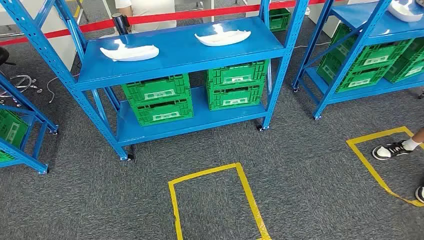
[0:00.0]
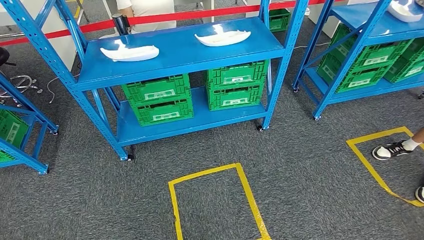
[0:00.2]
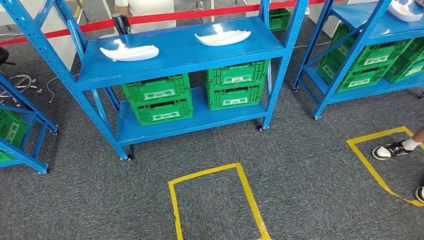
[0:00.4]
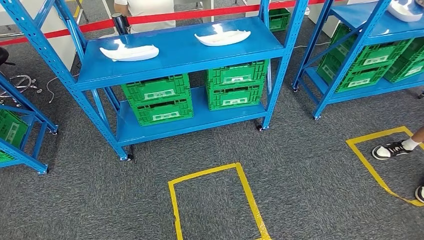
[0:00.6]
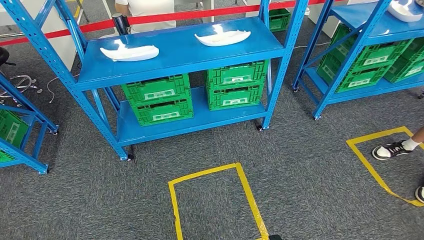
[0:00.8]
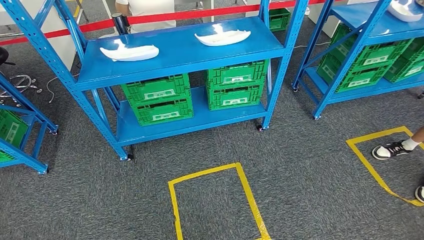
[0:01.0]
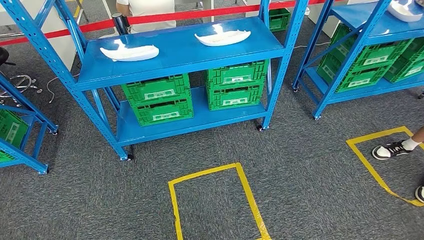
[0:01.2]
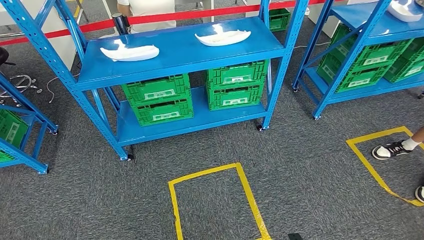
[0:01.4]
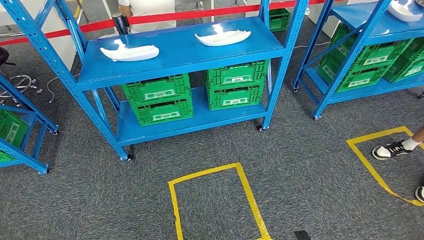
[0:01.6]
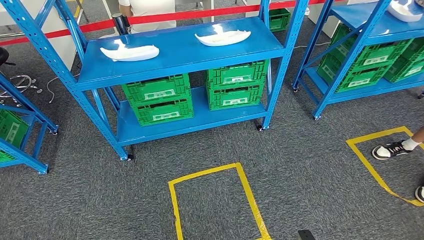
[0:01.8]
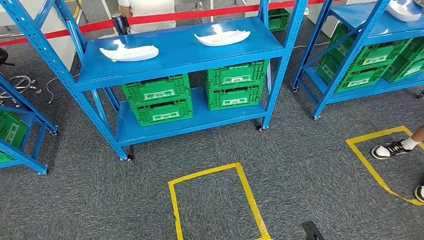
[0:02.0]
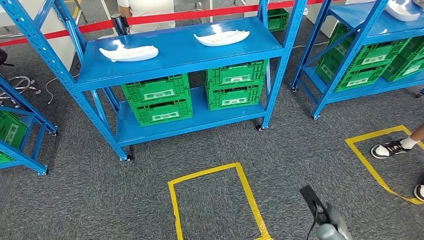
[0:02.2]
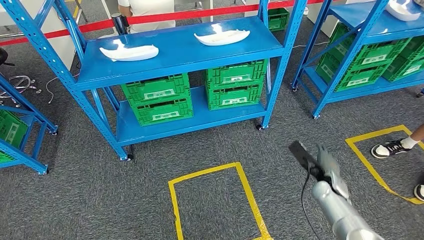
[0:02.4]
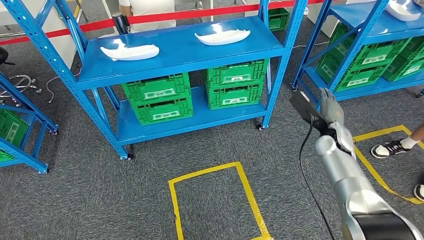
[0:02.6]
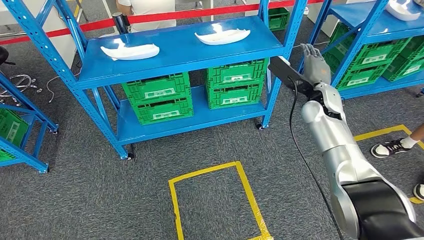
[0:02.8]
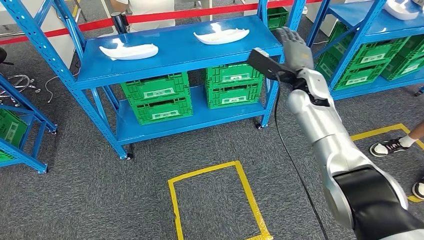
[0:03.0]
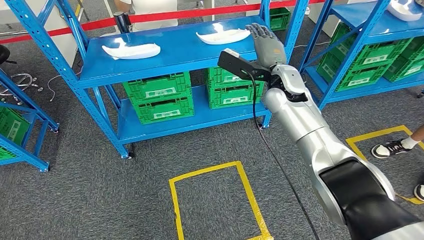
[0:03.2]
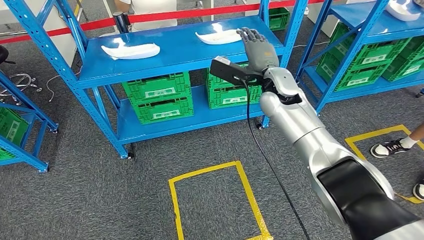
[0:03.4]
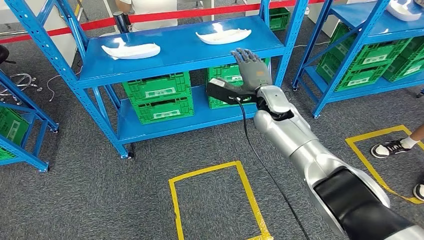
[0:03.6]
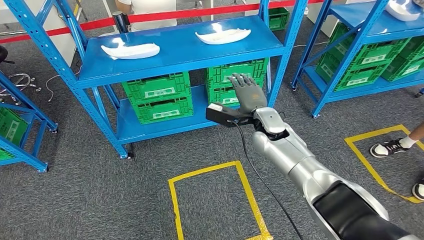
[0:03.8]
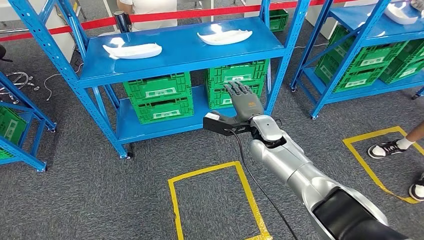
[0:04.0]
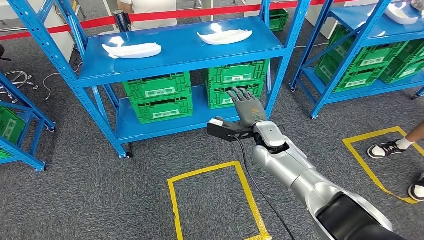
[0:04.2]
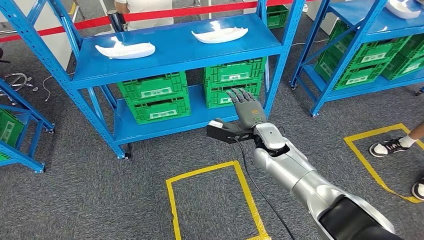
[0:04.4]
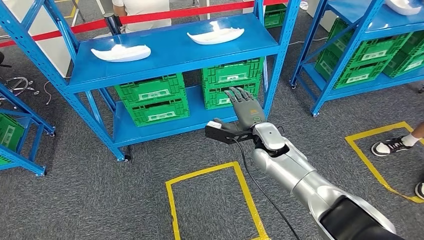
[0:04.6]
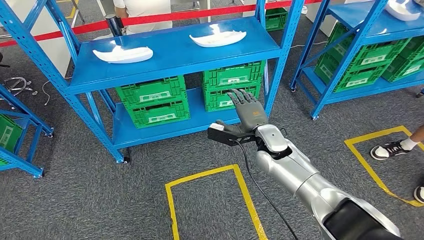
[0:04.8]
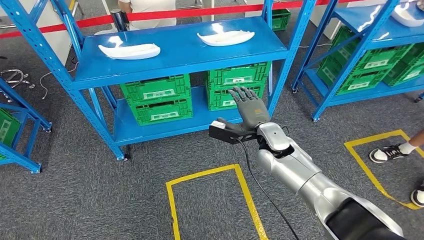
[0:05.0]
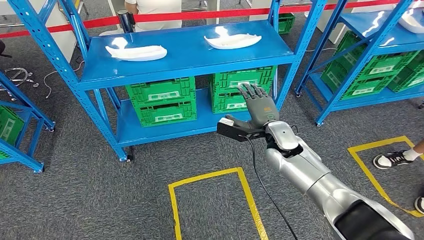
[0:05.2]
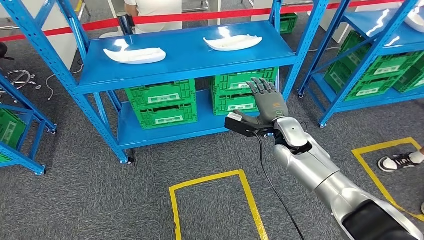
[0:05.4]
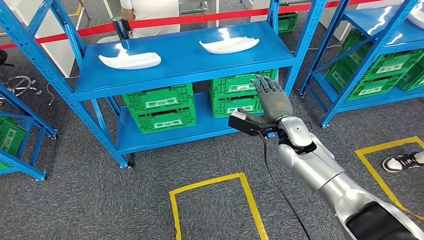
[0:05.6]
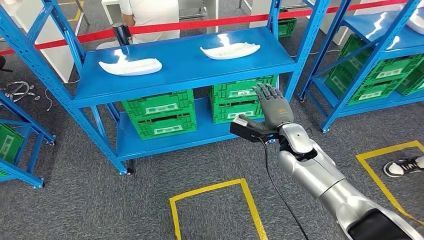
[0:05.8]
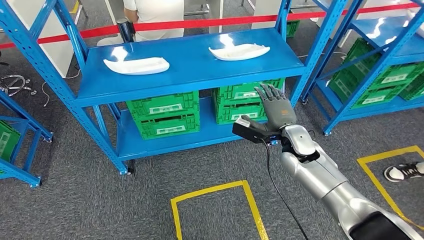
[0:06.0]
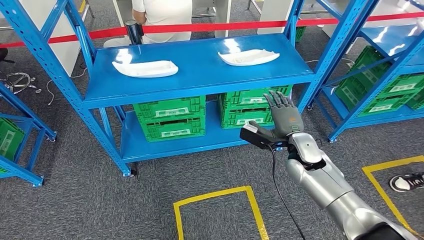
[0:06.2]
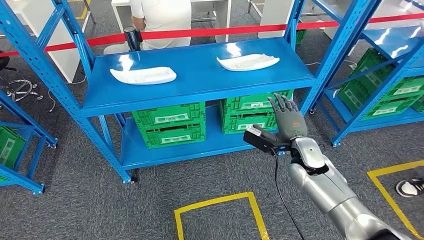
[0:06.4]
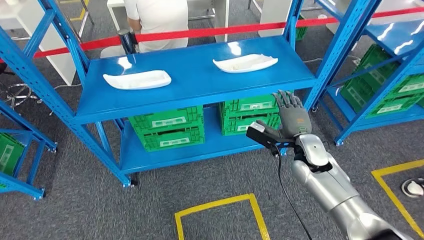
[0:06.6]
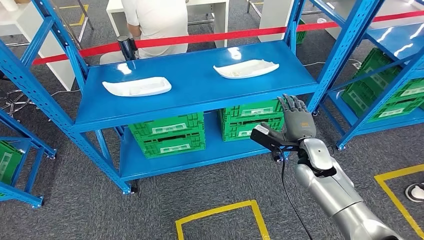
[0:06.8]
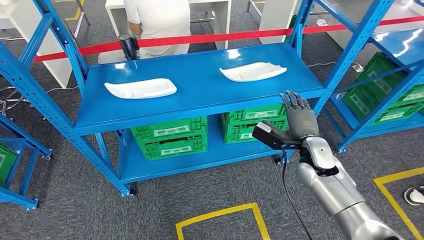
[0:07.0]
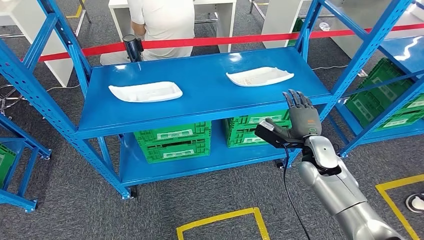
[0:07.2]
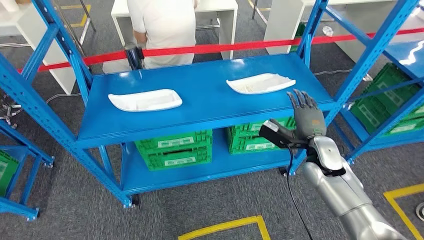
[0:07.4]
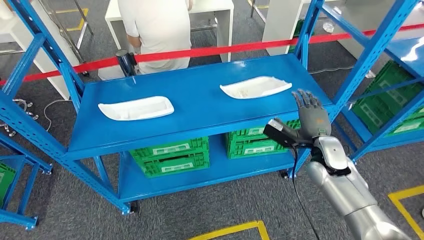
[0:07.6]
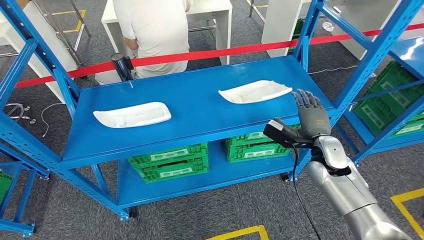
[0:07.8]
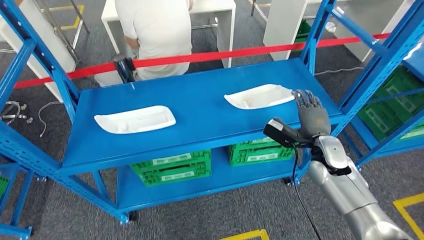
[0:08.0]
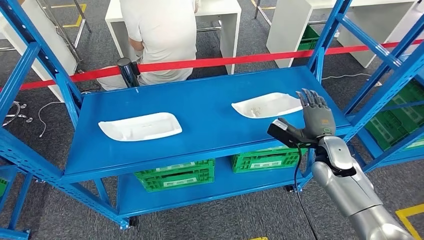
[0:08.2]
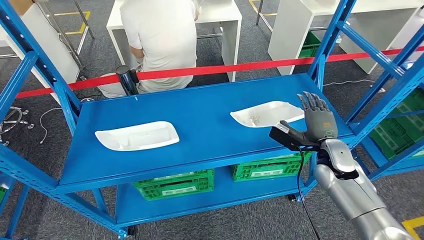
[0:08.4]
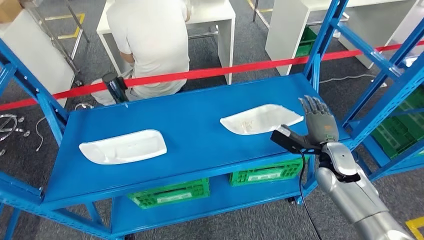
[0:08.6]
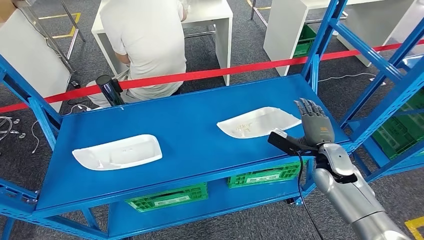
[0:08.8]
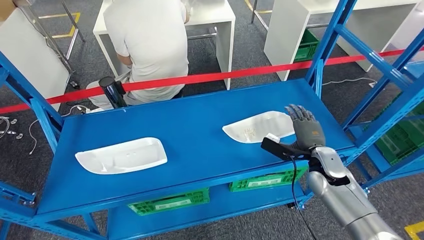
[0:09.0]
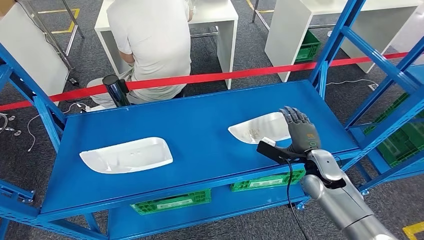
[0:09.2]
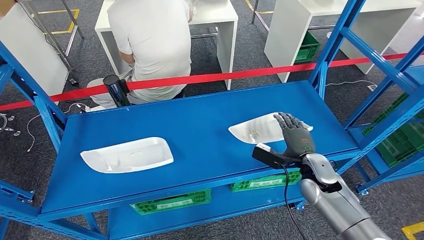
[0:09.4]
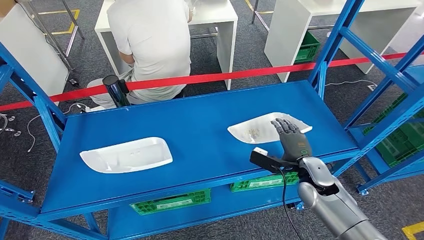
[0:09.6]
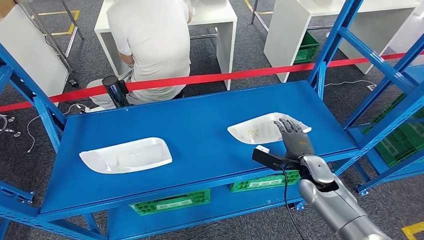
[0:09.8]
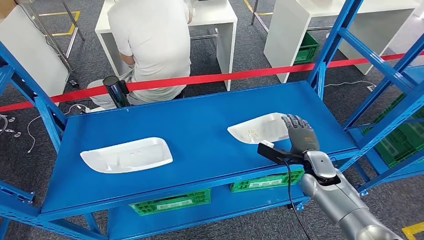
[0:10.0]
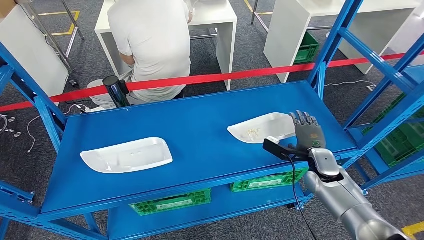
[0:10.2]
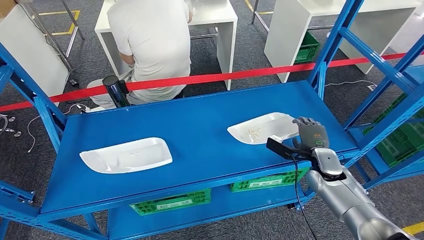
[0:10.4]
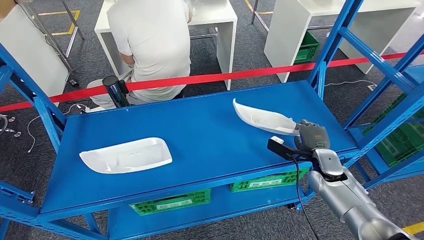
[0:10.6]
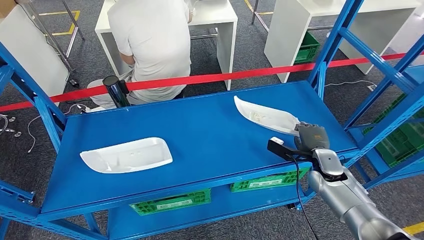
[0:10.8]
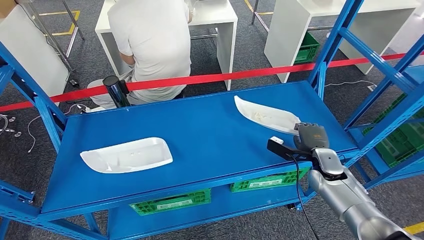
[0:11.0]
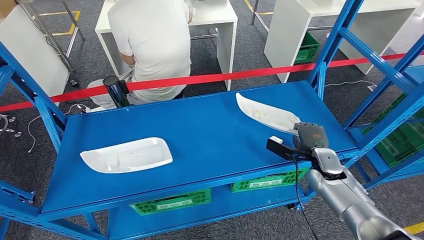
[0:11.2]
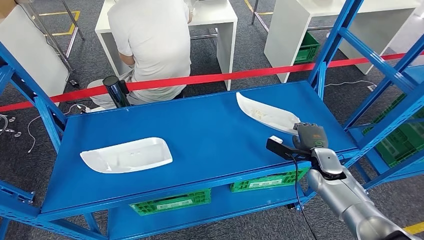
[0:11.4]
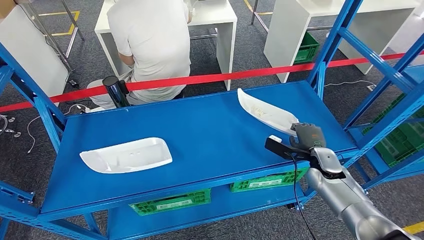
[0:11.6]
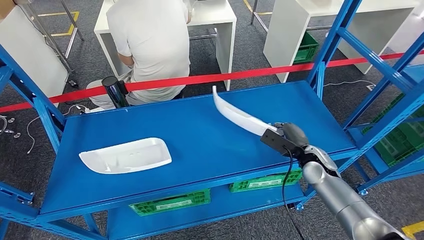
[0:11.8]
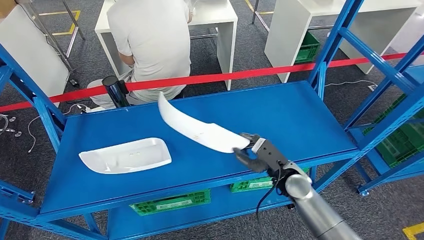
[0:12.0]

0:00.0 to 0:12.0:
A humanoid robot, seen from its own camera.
0:09.0 to 0:10.4: There are only small adjustments of the hands.
0:10.4 to 0:12.0: The right hand travels to the left by roughly 10 cm.

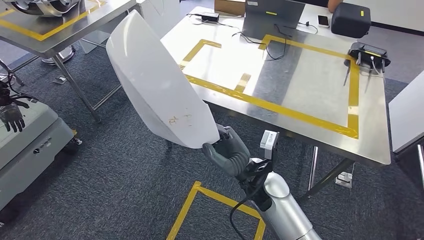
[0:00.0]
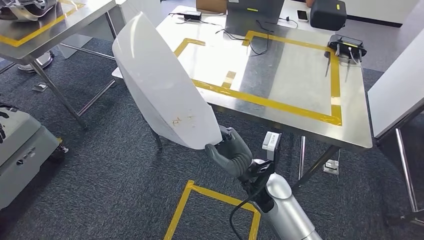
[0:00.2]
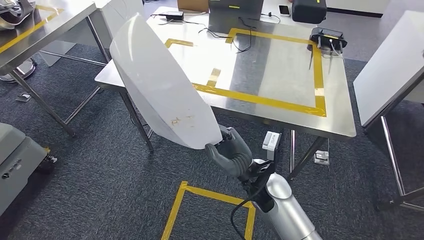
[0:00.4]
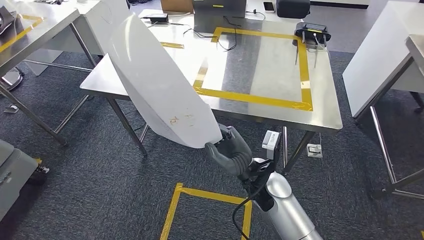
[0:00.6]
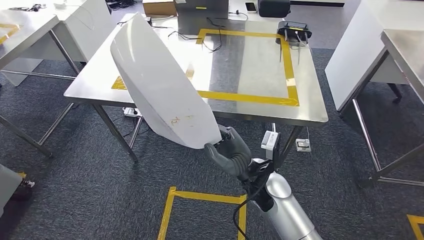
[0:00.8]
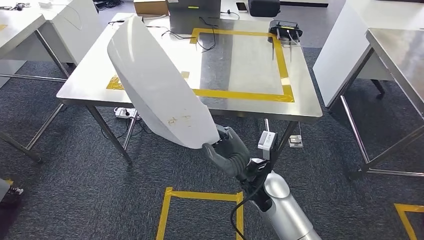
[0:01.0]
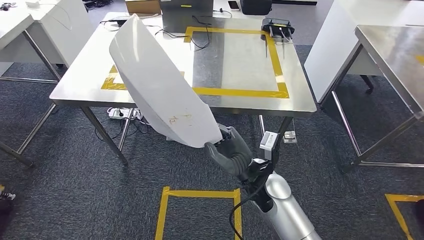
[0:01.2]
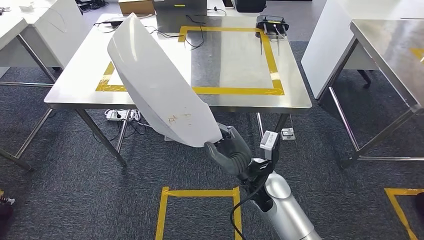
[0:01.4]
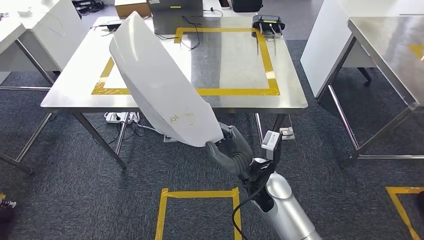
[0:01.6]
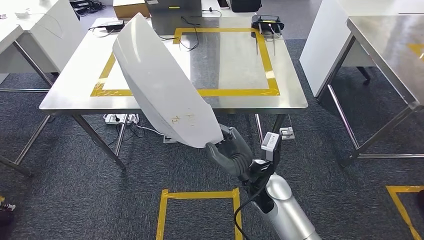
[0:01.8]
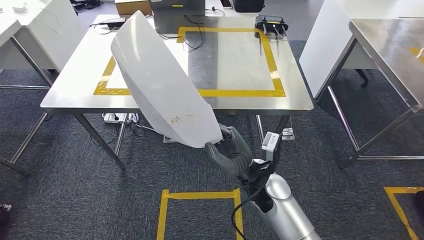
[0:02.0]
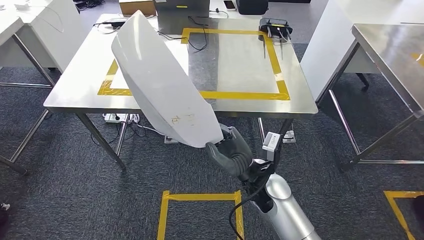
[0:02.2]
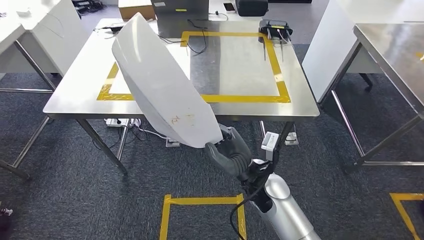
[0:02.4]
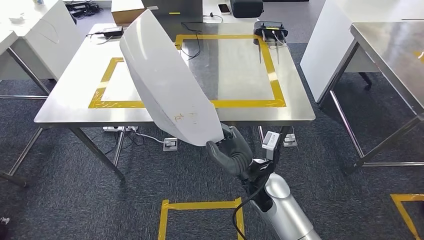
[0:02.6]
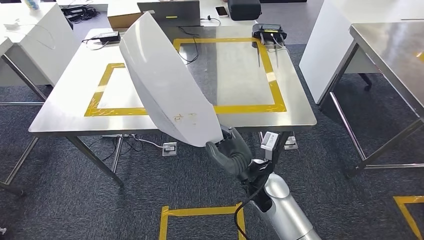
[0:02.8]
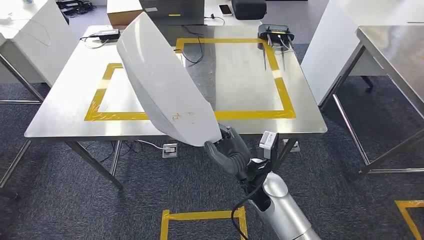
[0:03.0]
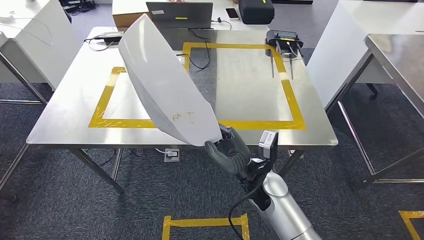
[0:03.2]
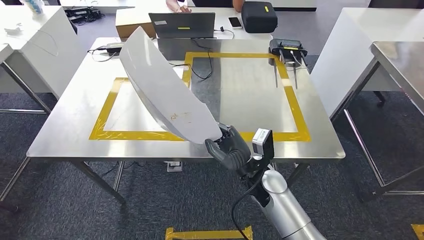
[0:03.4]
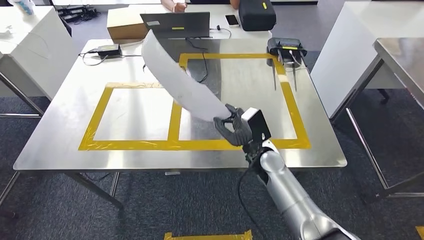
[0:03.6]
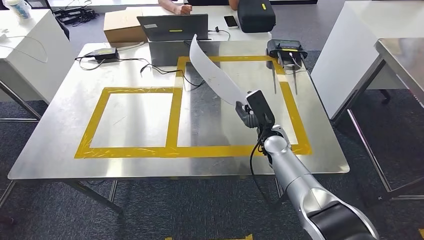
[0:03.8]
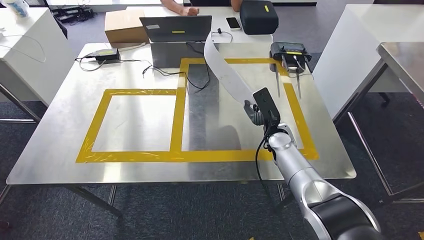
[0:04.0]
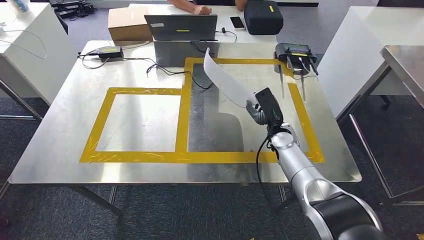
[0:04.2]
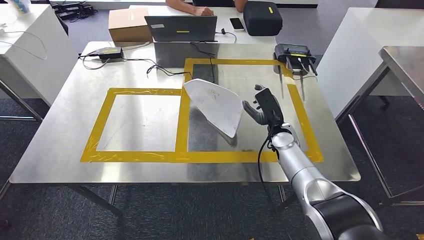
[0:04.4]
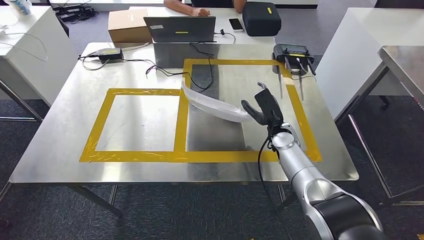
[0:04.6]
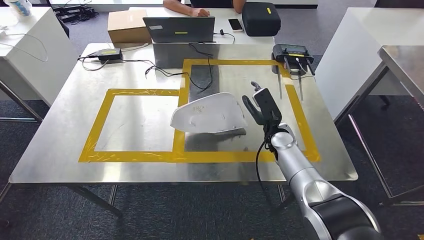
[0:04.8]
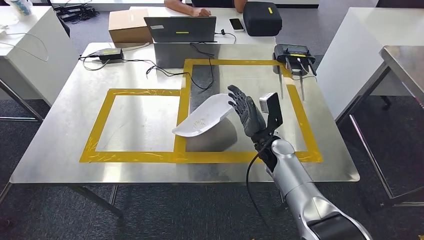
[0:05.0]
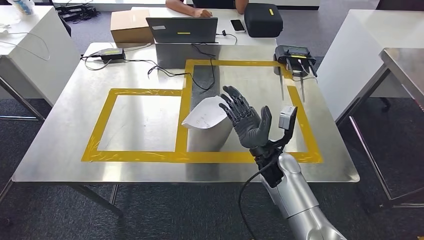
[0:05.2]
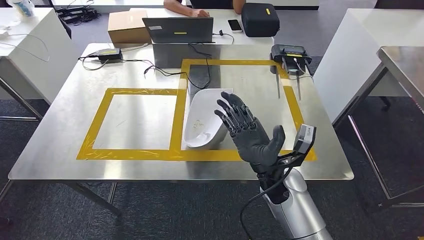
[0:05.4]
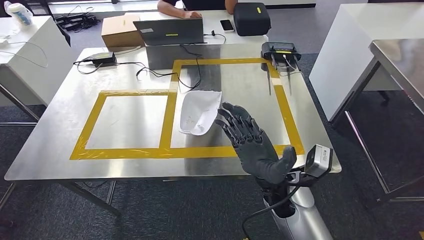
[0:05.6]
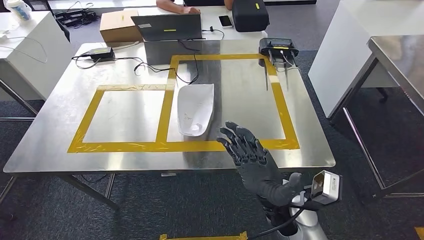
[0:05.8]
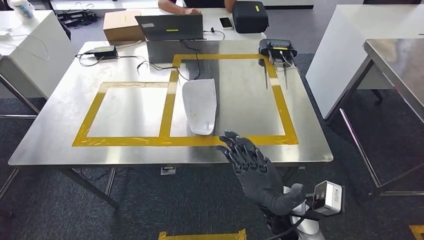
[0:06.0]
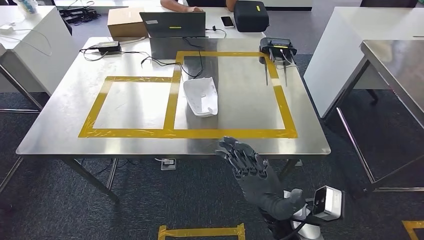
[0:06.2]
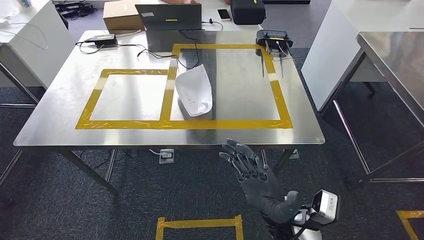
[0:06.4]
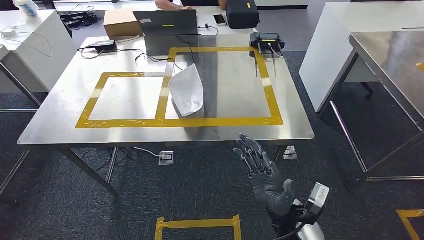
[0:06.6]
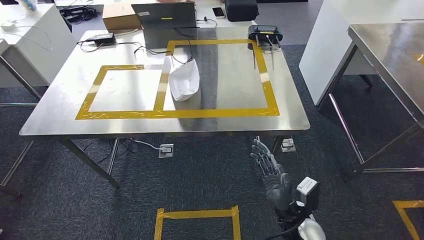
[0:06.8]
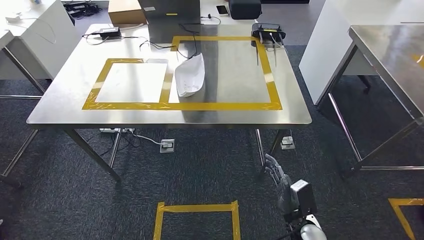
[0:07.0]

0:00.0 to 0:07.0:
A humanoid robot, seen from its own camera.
Step, 0:00.0 to 0:02.4: Move the small parts to the workbench.
Step, 0:02.8 to 0:05.8: Insert the small parts into the corresponding holes on the workbench.
